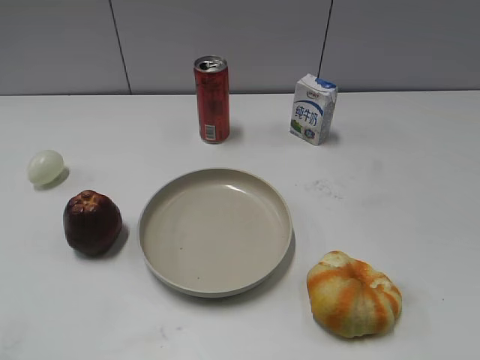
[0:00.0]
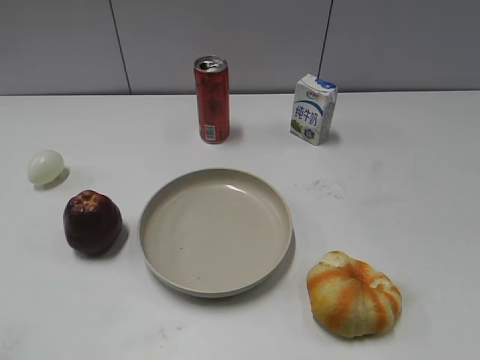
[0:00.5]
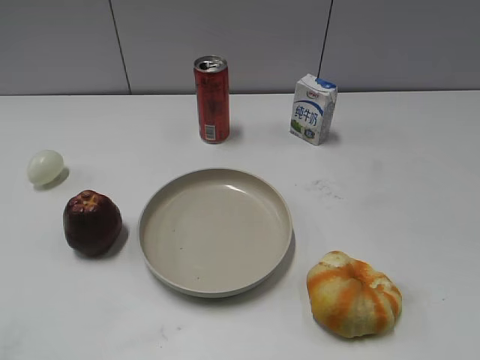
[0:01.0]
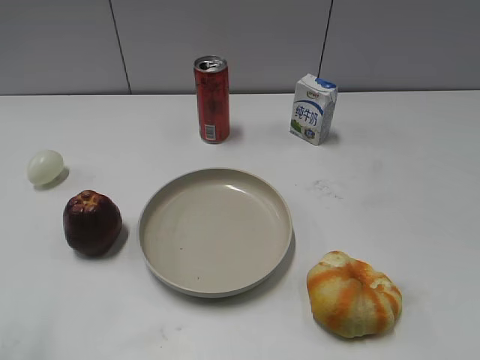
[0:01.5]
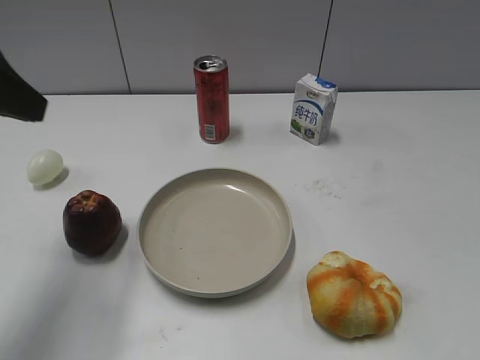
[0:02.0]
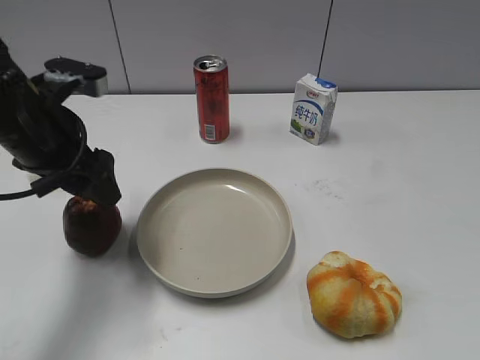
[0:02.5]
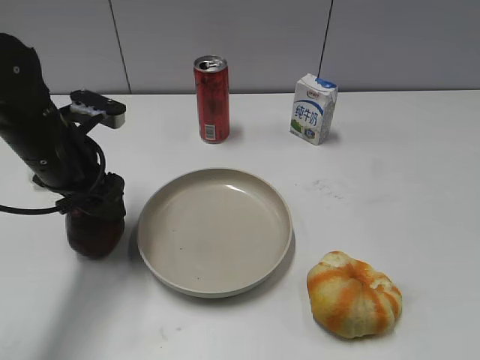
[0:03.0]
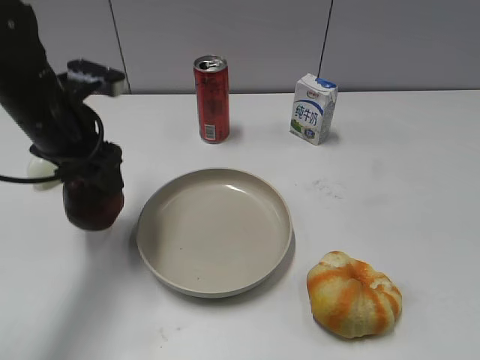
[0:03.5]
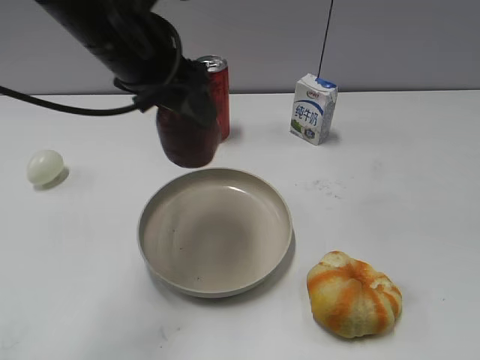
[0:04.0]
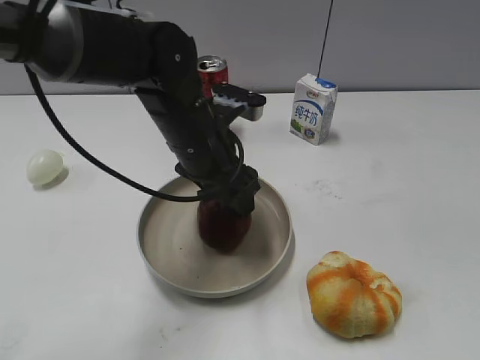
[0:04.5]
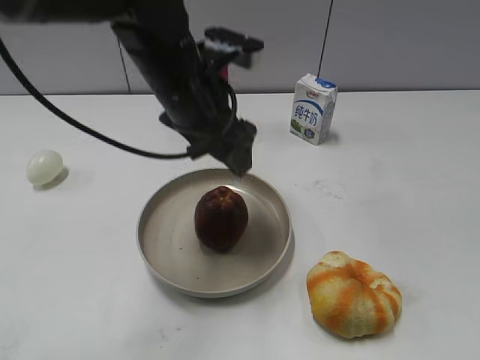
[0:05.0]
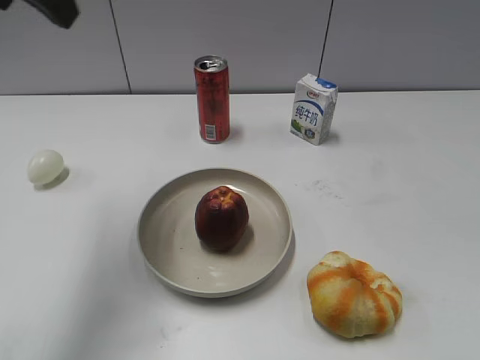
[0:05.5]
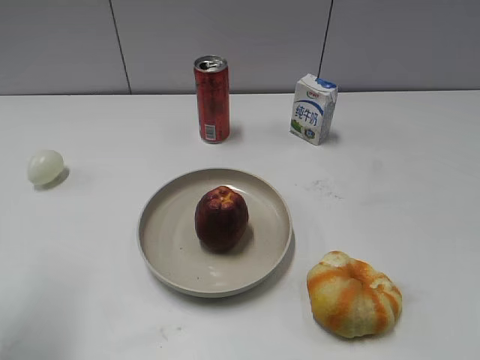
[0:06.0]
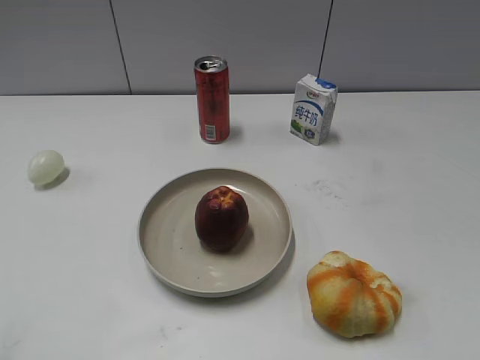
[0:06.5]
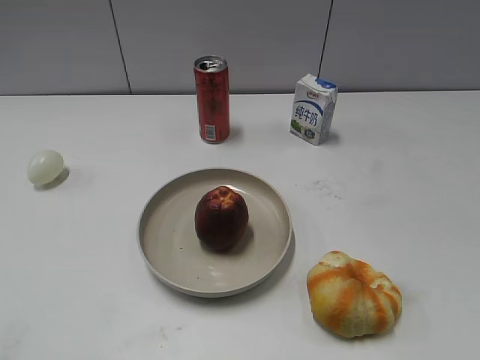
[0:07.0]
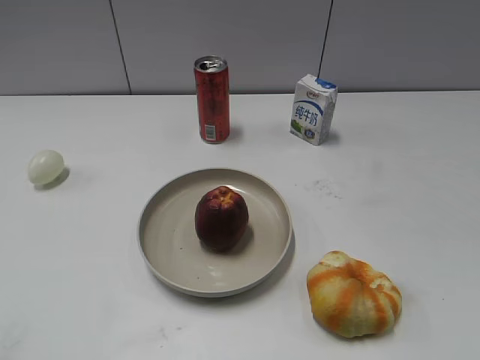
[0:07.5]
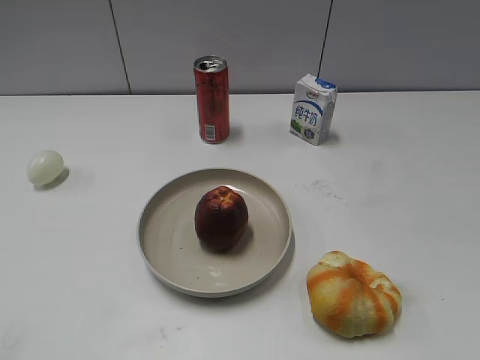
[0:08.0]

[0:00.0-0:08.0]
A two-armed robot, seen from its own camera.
Step, 0:00.0 to 0:03.0: Grasp the apple with left gripper.
Step, 0:03.5 to 0:04.5: Place the apple on the plate with left gripper.
0:02.0 to 0:04.0: The left gripper goes about 20 cm to the right and forward, and goes downward and returns, about 15 cm each way.
0:04.0 to 0:06.0: The left gripper heads to the left and backward, covering roughly 20 cm, and opens its fingers.
0:06.0 to 0:08.0: The left gripper travels backward by approximately 20 cm, and closes.
